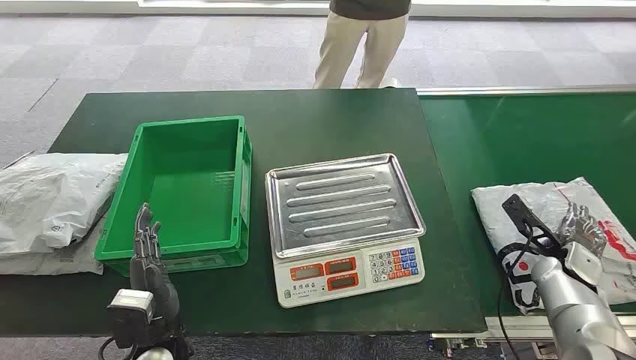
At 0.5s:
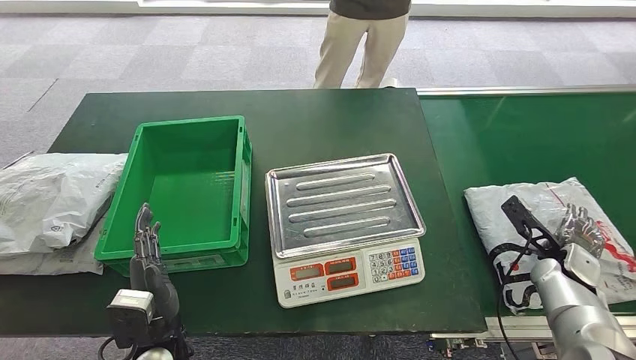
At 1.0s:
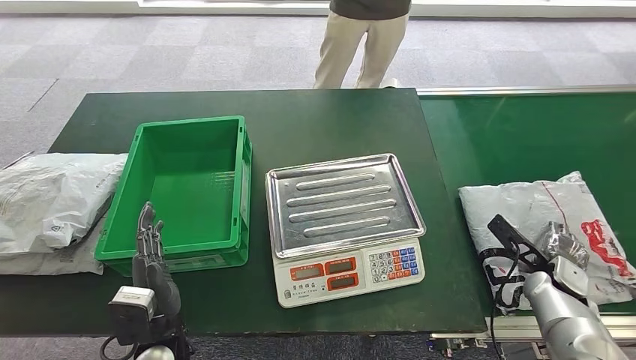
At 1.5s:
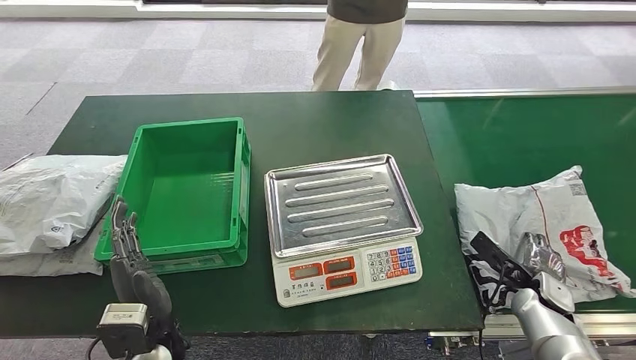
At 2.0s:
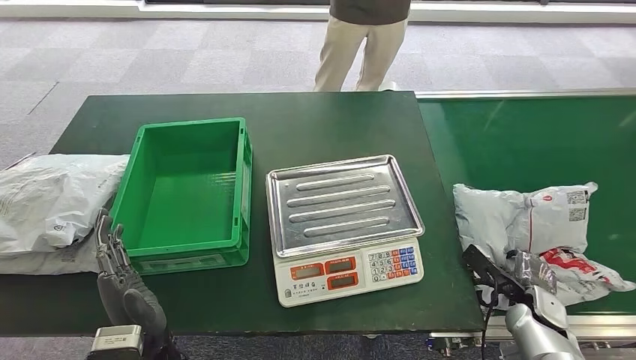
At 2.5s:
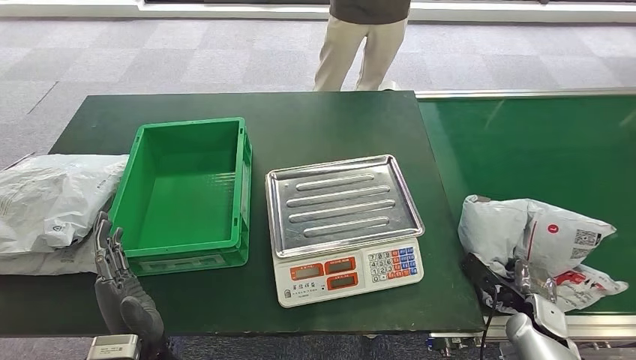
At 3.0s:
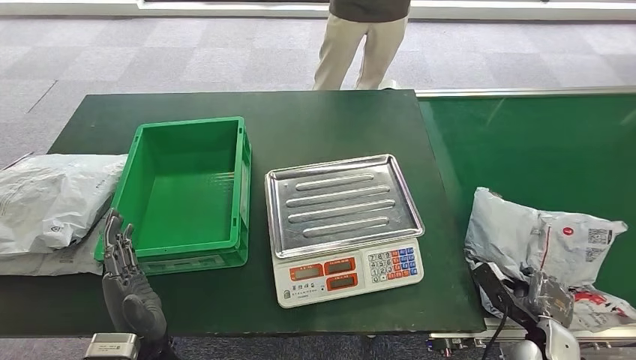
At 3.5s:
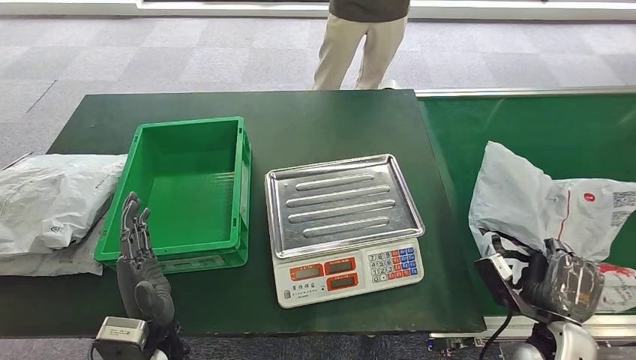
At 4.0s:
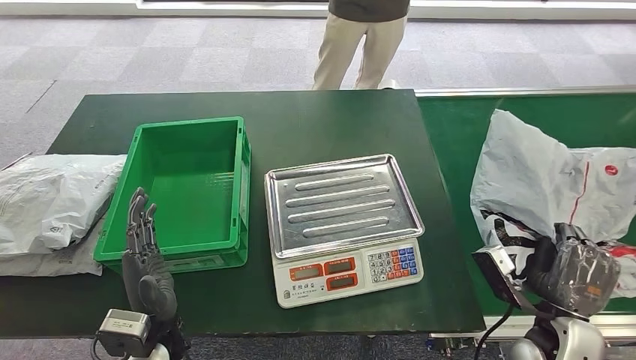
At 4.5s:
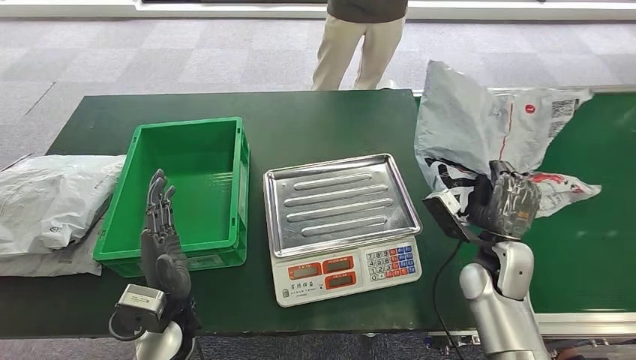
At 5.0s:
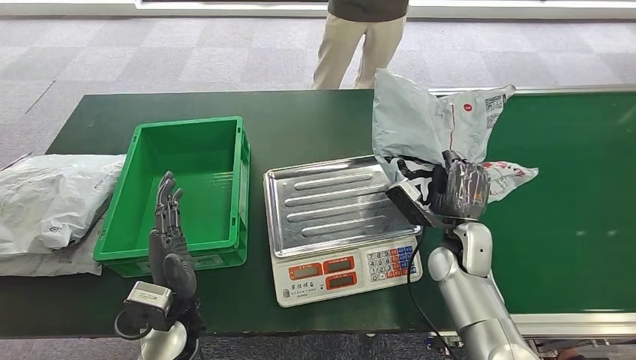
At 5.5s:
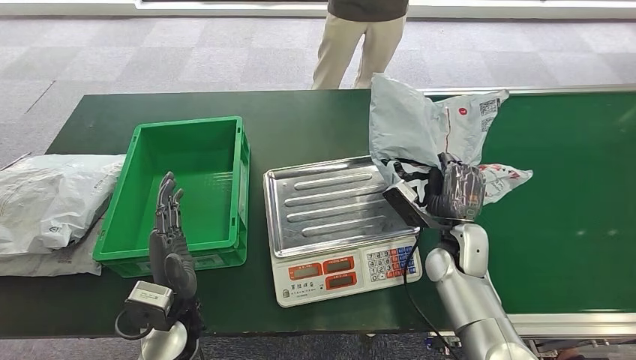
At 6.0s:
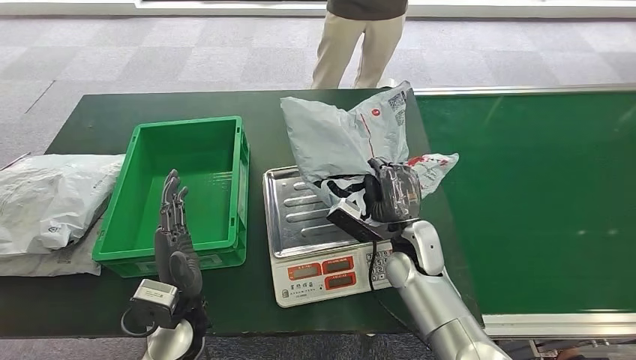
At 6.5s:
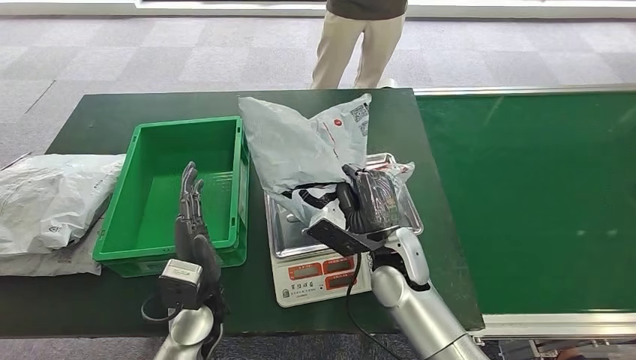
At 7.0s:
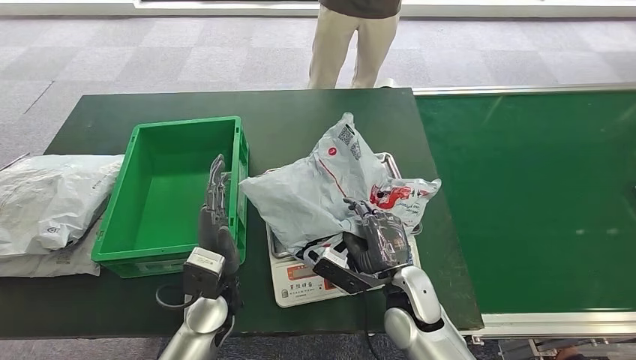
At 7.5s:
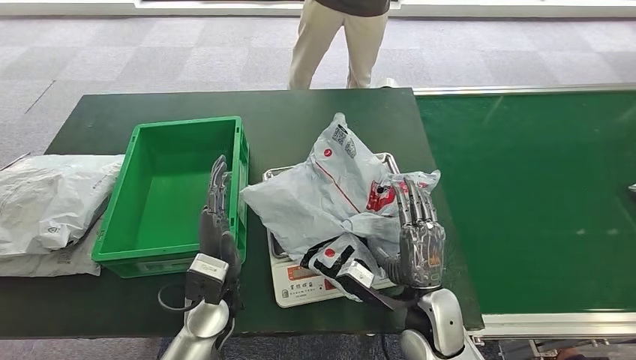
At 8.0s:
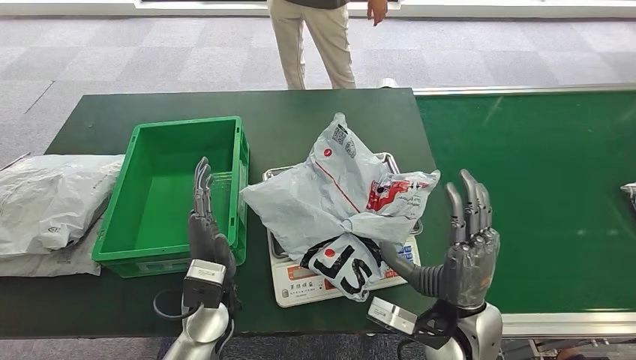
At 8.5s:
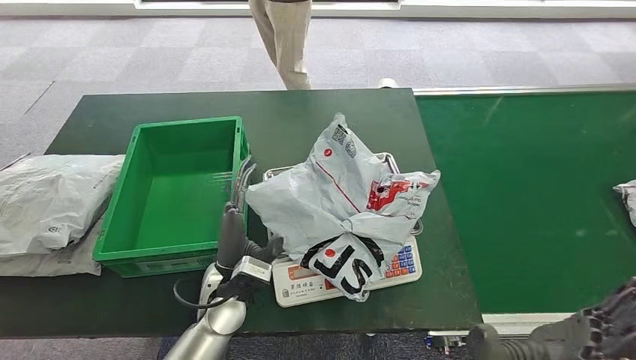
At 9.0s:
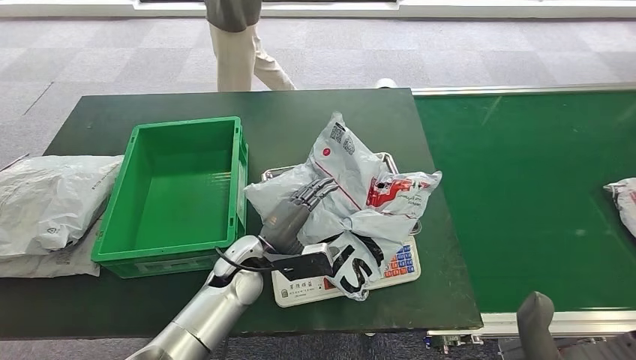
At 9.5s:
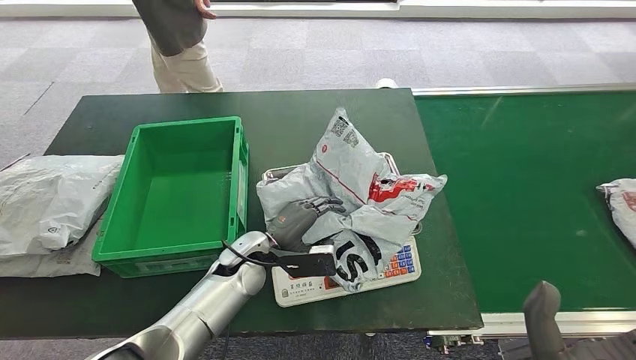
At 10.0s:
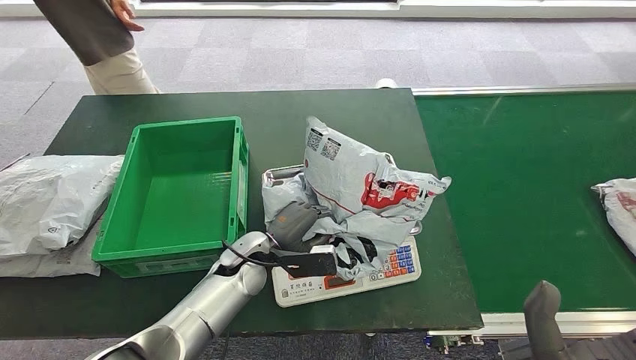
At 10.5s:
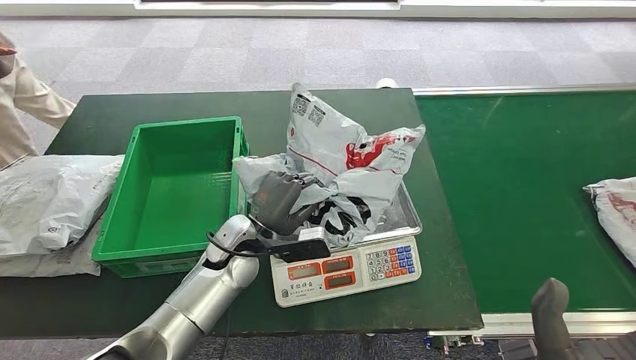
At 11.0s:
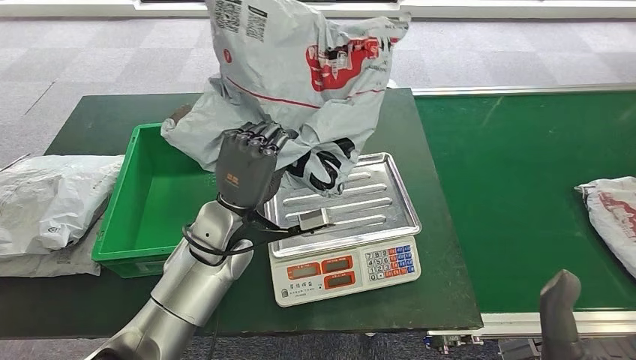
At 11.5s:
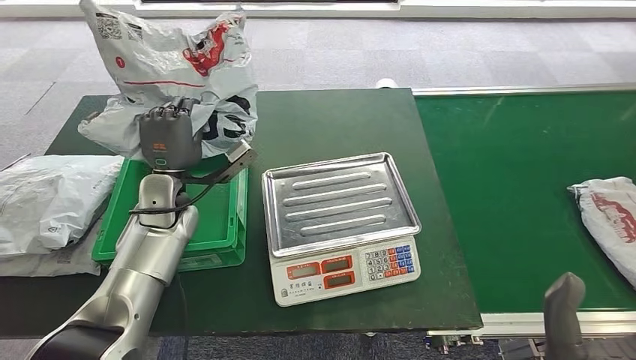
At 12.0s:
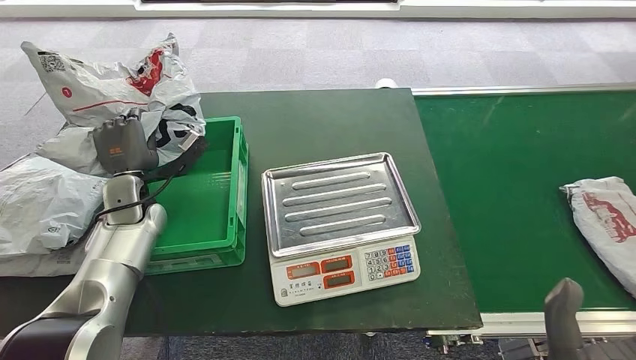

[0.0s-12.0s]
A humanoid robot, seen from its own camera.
Step, 0.0s to 4.0s: Take the parcel off the conveyor belt.
Step, 4.5s to 9.0s: Place the parcel onto the inbound machine.
Step, 9.5s to 11.0s: Pick up the parcel from the inbound machine.

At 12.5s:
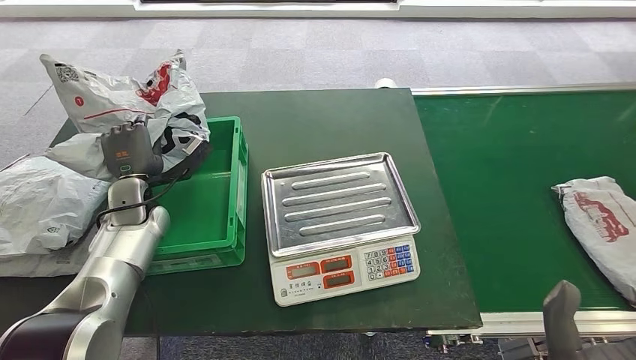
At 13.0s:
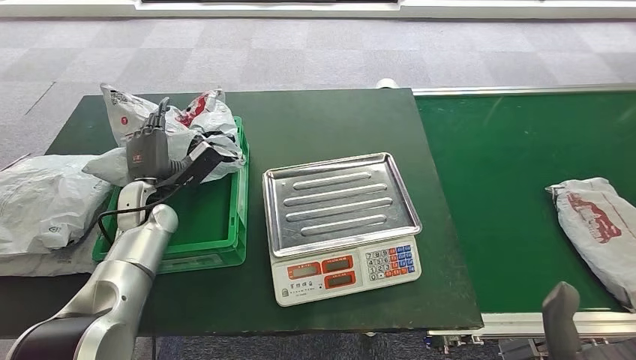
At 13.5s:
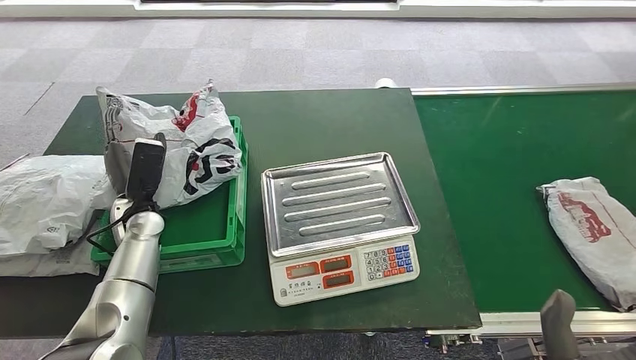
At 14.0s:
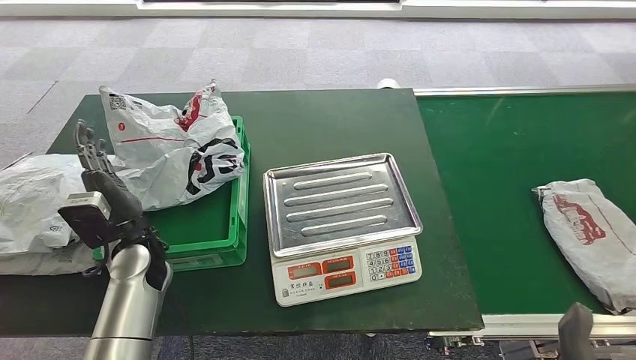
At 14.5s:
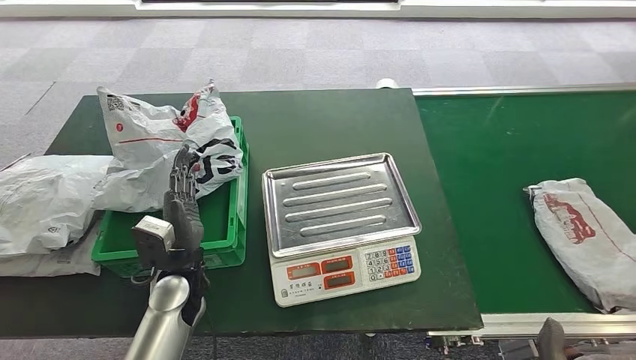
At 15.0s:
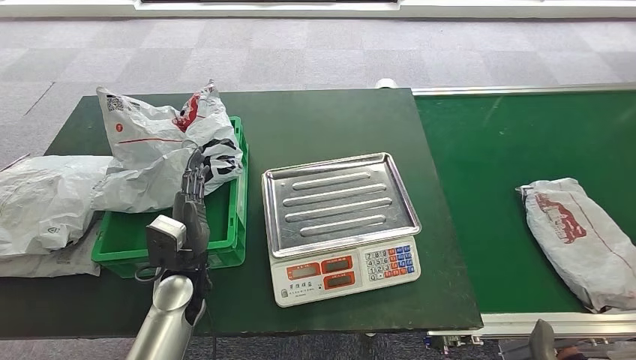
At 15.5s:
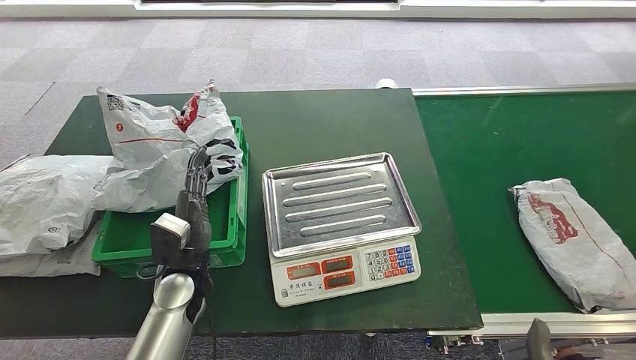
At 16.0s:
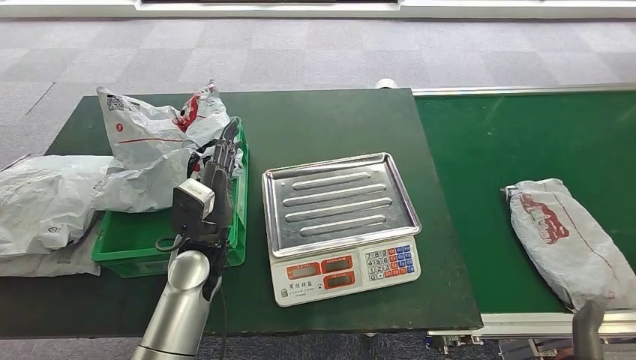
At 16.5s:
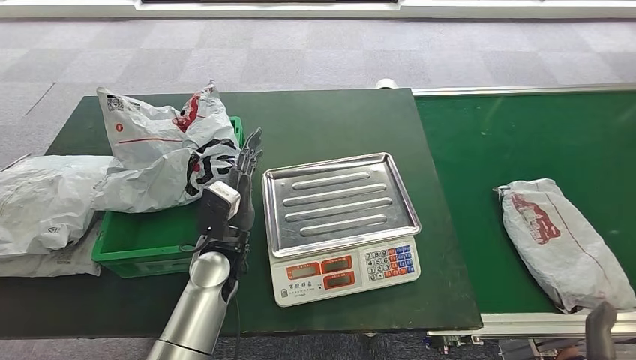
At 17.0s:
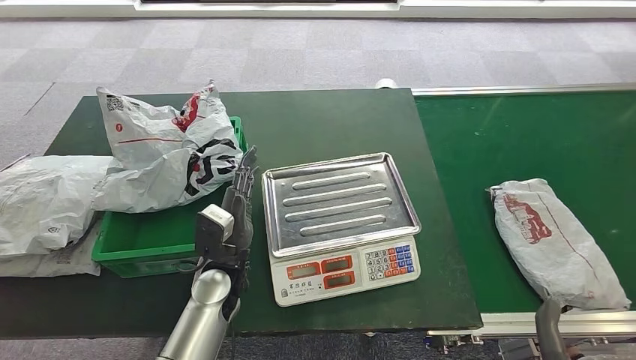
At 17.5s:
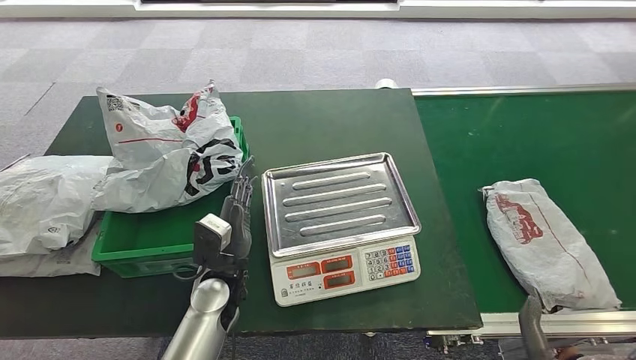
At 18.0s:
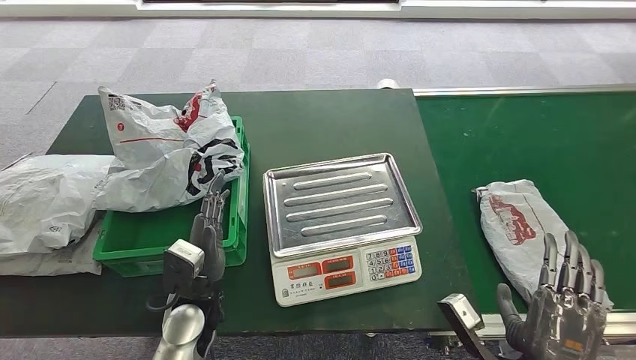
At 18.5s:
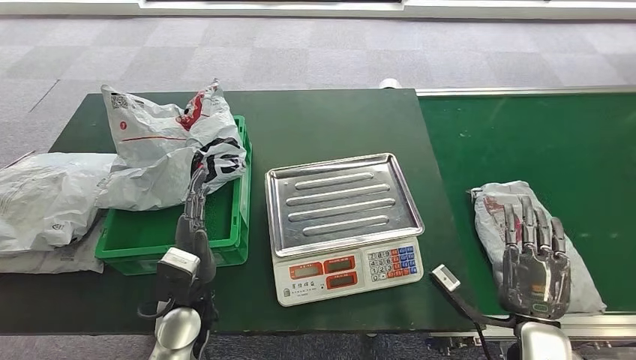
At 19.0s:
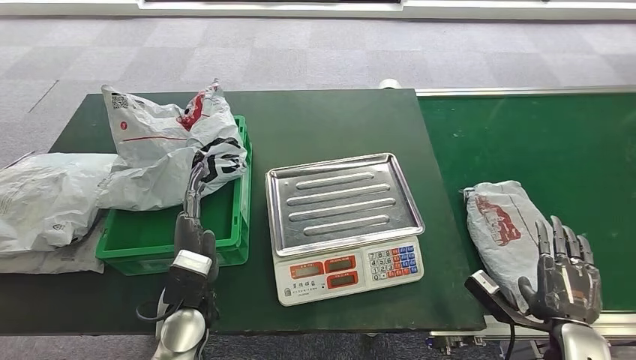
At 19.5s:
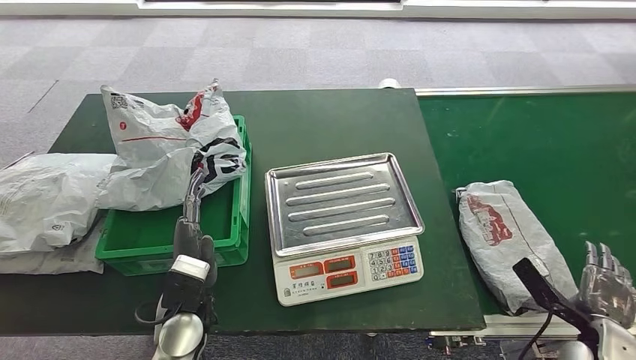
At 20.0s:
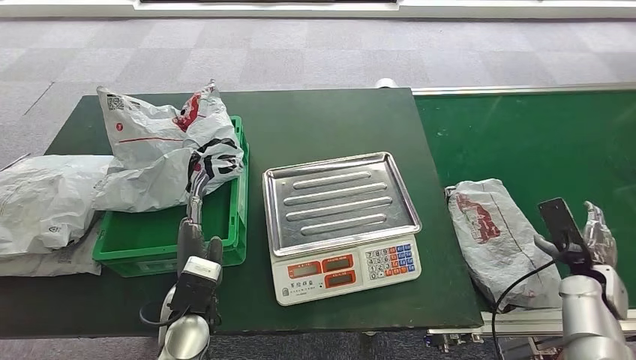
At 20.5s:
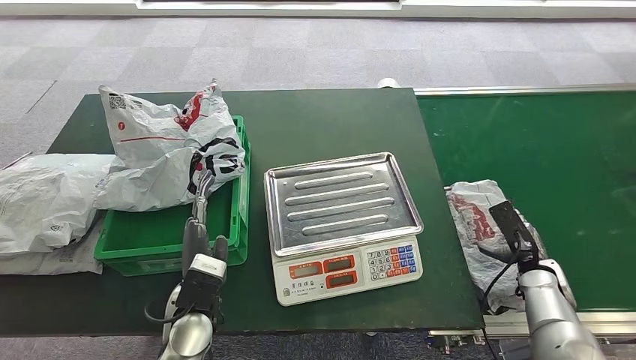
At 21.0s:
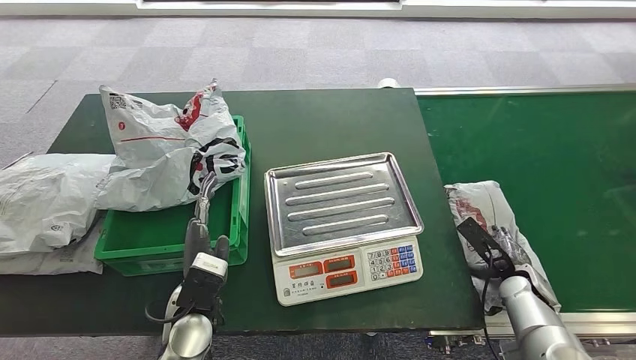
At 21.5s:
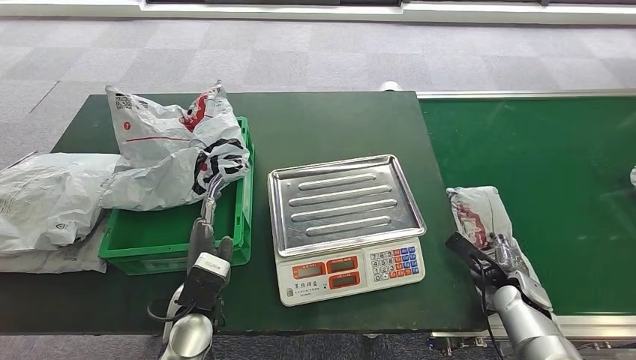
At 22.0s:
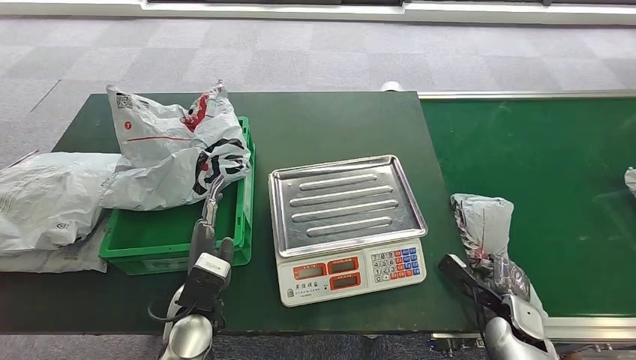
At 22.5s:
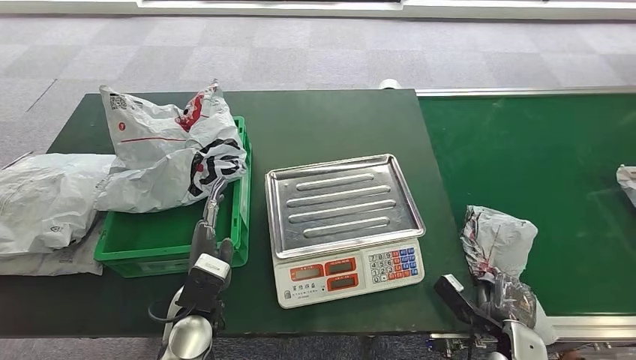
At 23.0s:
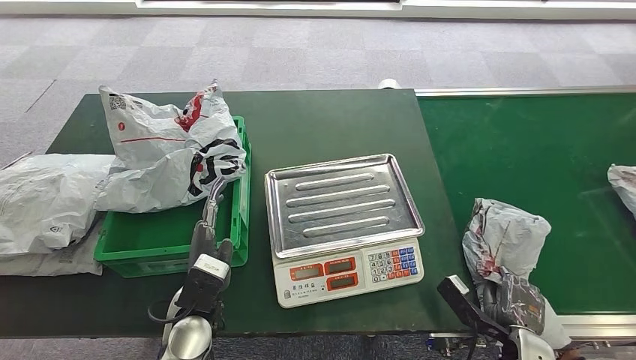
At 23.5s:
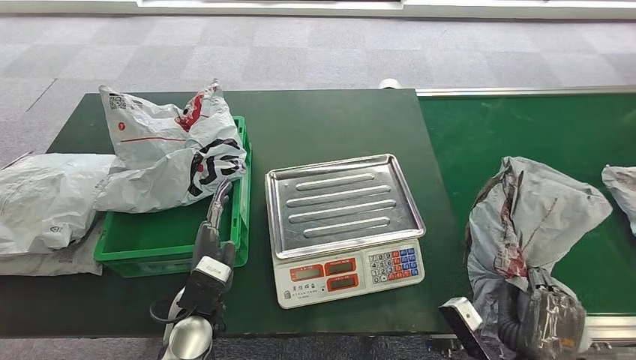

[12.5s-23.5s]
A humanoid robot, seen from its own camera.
Step, 12.5s to 14.5s: Put the parcel inside the courier box.
Step, 20.0s to 23.0s: Pick up the parcel from the conveyor belt.
14.5s to 16.0s: The left hand shifts by some 5 cm.
16.0s to 18.0s: The left hand goes about 10 cm backward and downward.
18.0s to 20.0s: The right hand heads to the right and forward, covering approximately 25 cm.
